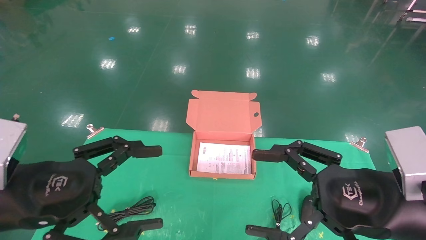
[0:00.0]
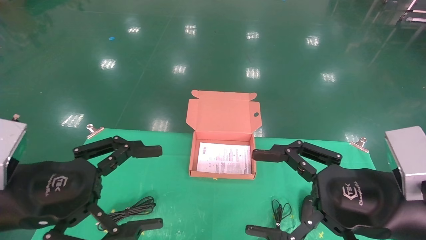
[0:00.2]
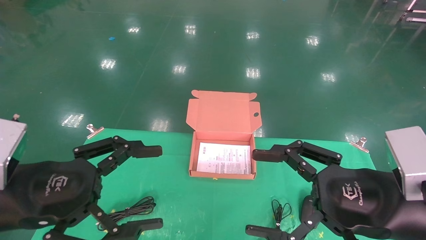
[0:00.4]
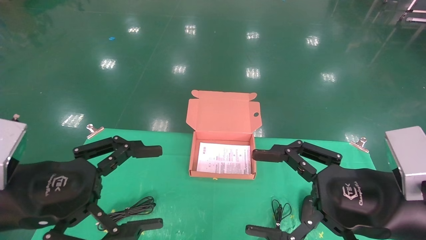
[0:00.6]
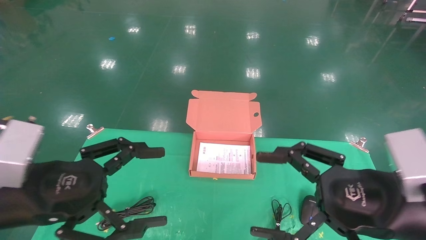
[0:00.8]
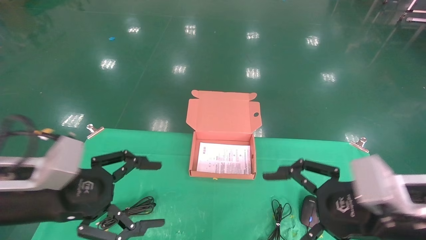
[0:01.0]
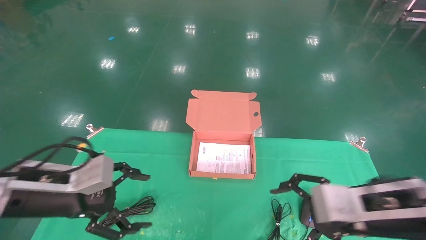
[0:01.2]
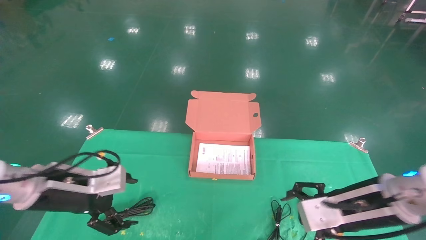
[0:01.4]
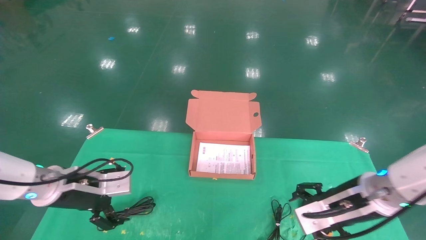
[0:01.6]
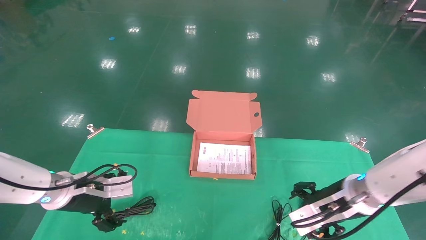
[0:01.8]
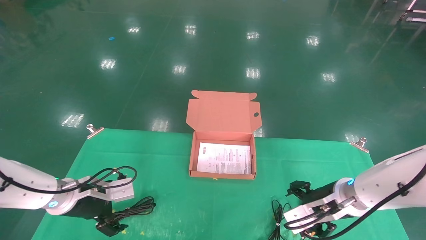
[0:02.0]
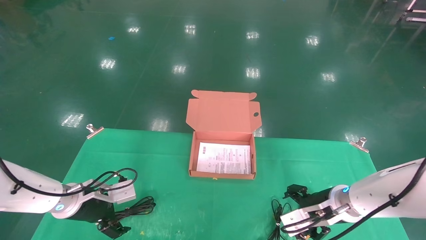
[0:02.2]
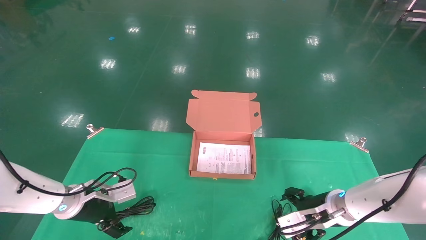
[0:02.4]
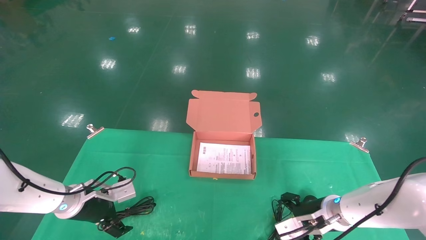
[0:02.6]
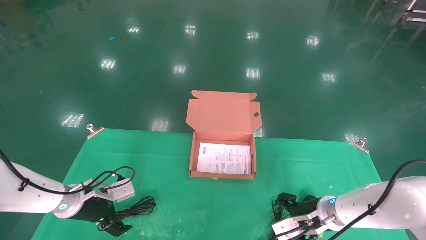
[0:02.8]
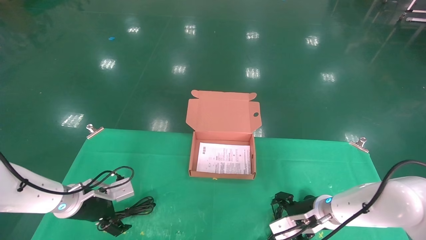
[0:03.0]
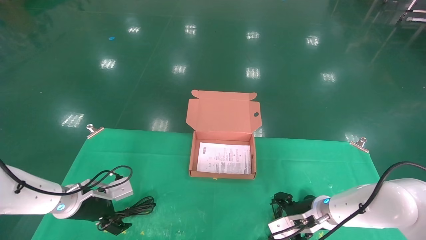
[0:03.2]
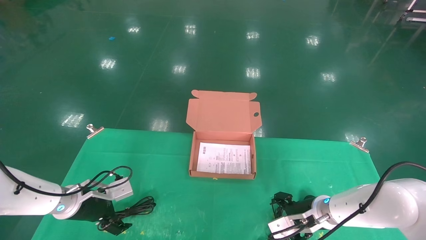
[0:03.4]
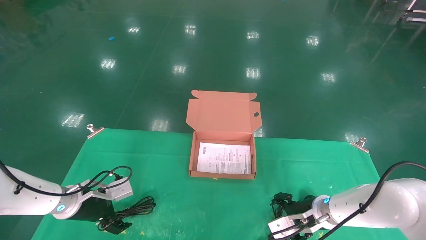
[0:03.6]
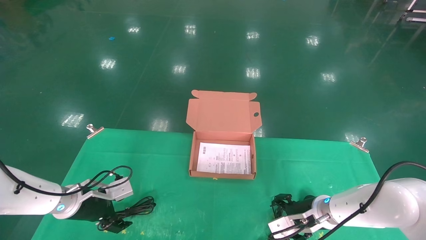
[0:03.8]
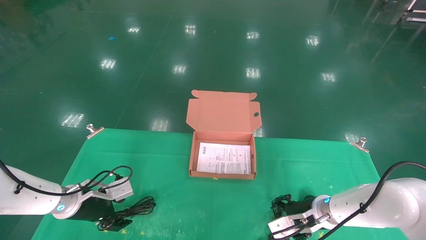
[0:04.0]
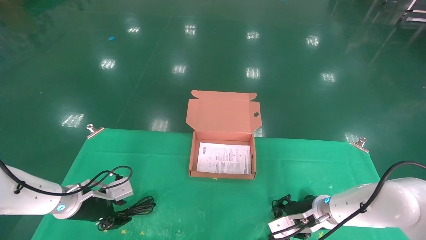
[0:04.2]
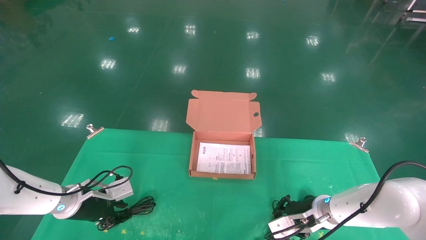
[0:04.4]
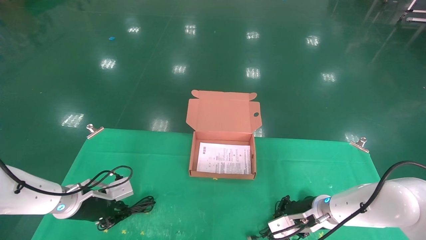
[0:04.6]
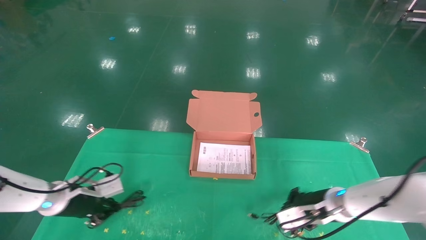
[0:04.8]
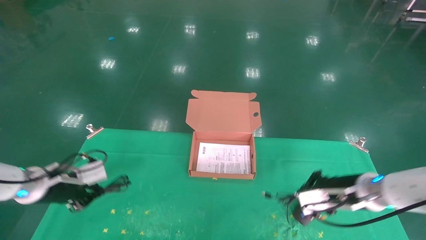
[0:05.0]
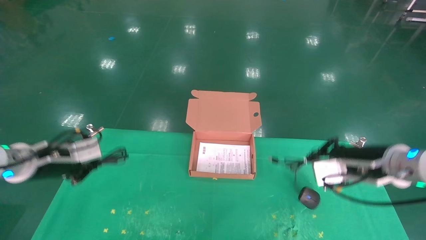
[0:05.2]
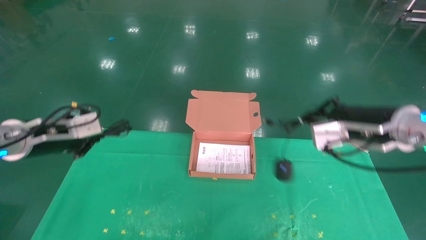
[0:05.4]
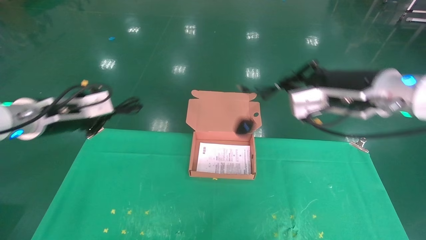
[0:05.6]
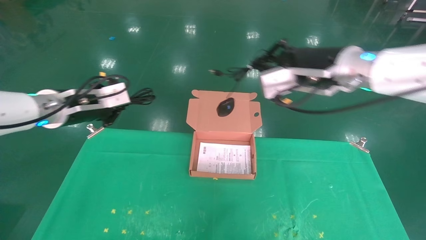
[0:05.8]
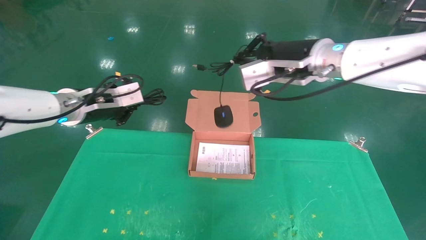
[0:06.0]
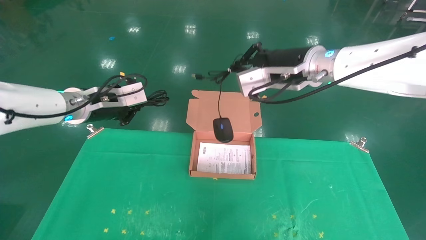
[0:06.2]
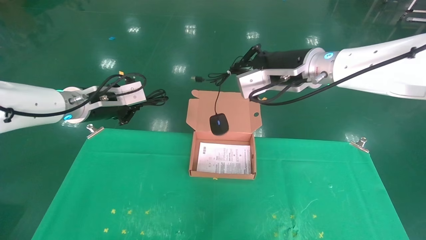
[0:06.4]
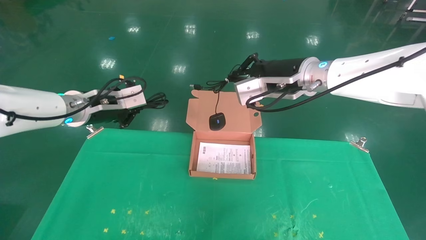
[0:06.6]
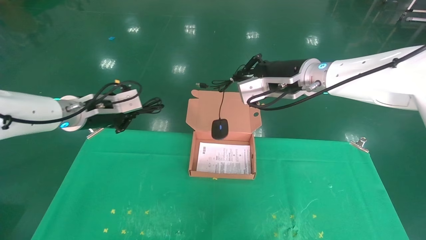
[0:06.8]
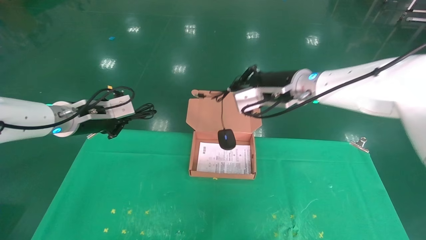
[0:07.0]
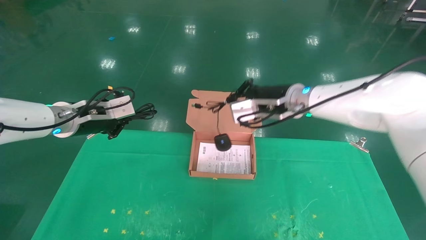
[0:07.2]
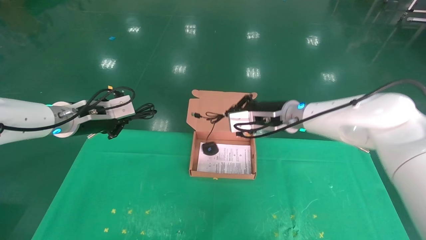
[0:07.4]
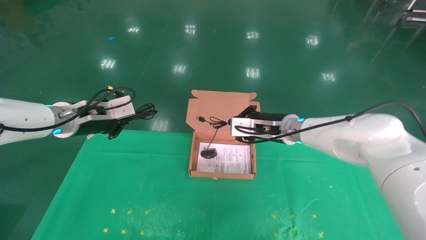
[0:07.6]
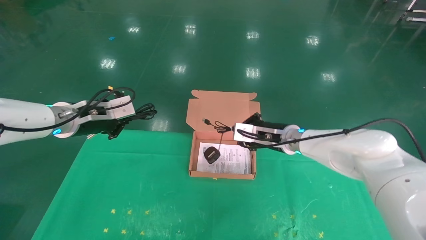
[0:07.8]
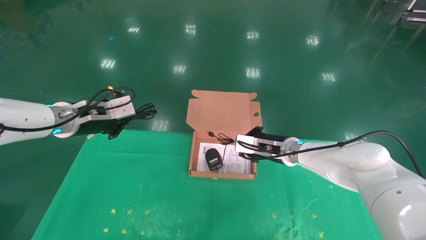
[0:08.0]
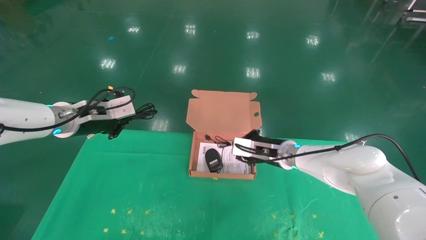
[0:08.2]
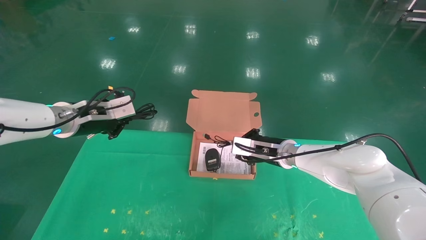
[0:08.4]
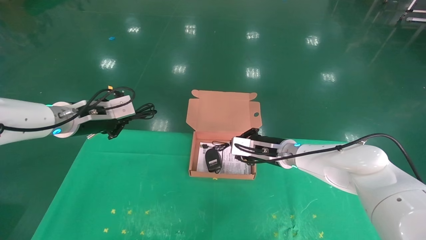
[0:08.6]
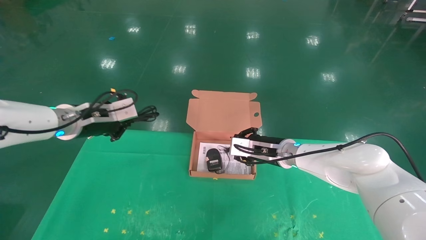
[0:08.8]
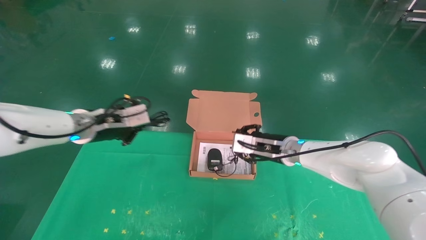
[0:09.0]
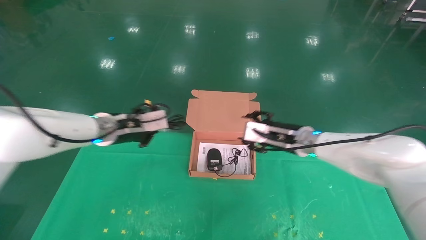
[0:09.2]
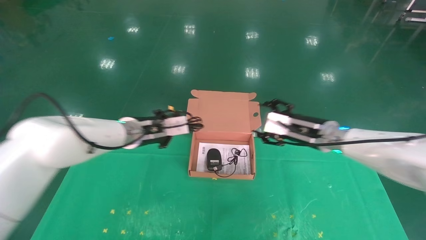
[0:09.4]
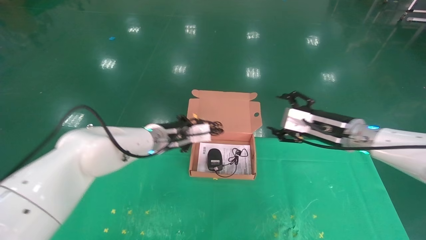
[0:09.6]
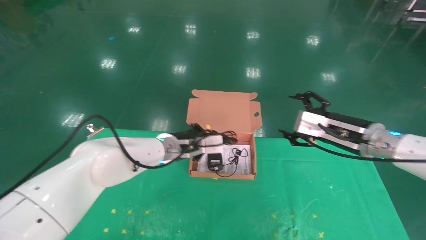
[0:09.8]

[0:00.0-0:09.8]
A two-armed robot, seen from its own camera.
Task of the whole recording: grasp data cable left put into box grasp mouse right put into box.
Step, 0:01.0 to 0:04.6: Grab and pick up both the mouse and power cord from the accessory packaging area at the same time.
0:00.0 to 0:01.4: The left gripper goes roughly 15 cm forward and downward. The right gripper heads forward, covering approximately 10 cm.
0:01.4 to 0:02.8: The two grippers go some 15 cm downward and forward.
0:02.8 to 0:04.2: The left gripper closes up. The right gripper closes its fingers.
0:04.2 to 0:05.6: Both grippers move upward, roughly 25 cm. The left gripper closes, while the right gripper closes.
0:05.6 to 0:07.0: The right gripper is displaced forward and to the left by some 15 cm. Meanwhile the left gripper shifts by some 5 cm.
0:07.0 to 0:08.4: The right gripper shifts roughly 15 cm downward.
0:08.4 to 0:09.8: The left gripper shifts some 20 cm to the right and downward. Meanwhile the right gripper is displaced to the right, backward and upward by roughly 20 cm, and opens up.

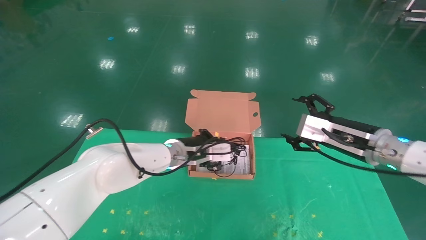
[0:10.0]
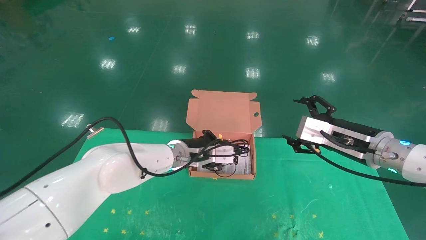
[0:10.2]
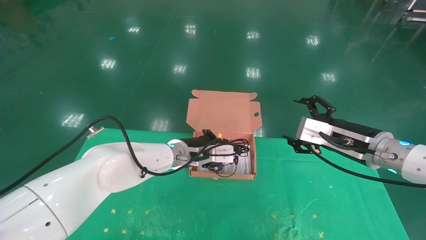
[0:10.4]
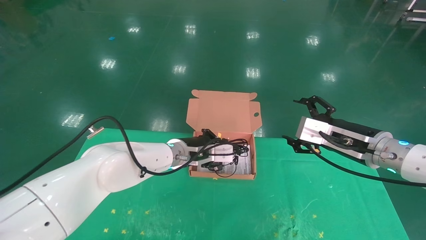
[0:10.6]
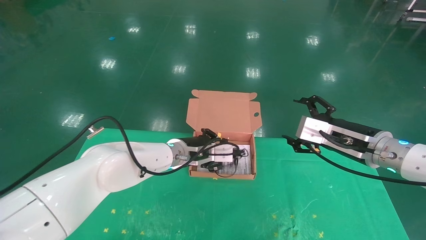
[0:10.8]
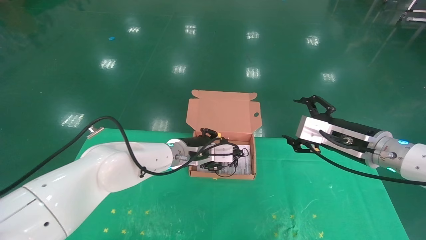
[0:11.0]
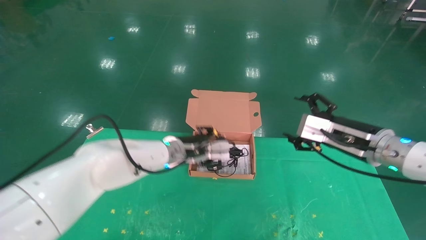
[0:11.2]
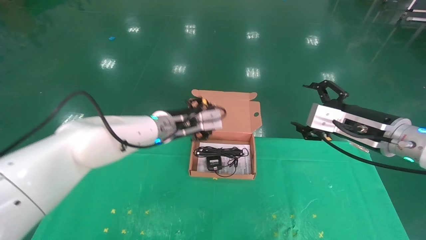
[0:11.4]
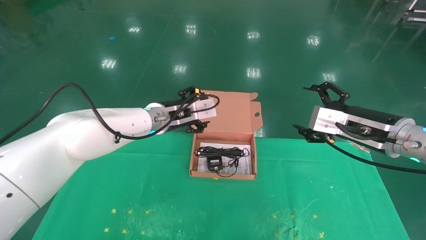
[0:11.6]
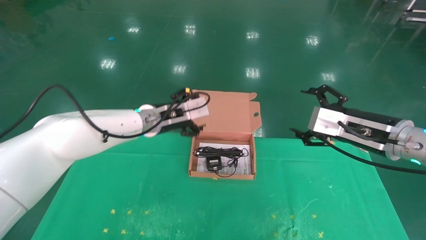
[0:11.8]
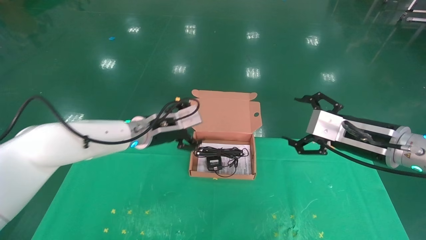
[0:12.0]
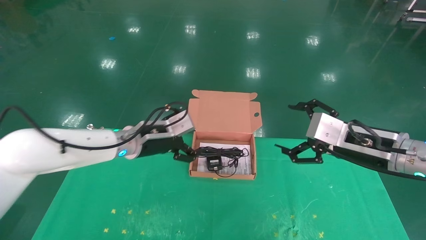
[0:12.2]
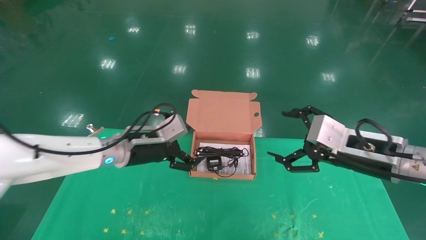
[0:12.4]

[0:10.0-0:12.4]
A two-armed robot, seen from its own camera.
Task of the whole recording: grasp data cable left put into box grasp mouse right put into box.
0:10.0 to 0:11.2: The left gripper opens up.
0:11.2 to 0:12.4: The left gripper shifts approximately 10 cm to the left and backward, and opens up. The right gripper shifts by roughly 5 cm.
